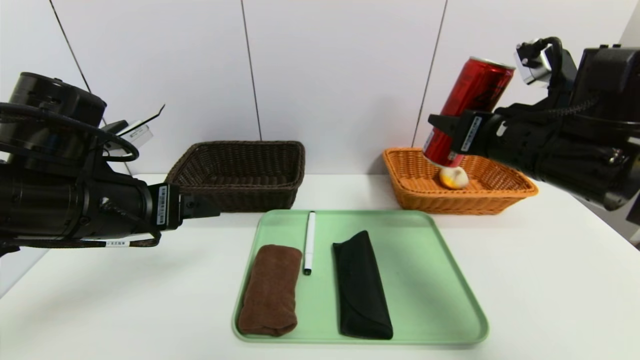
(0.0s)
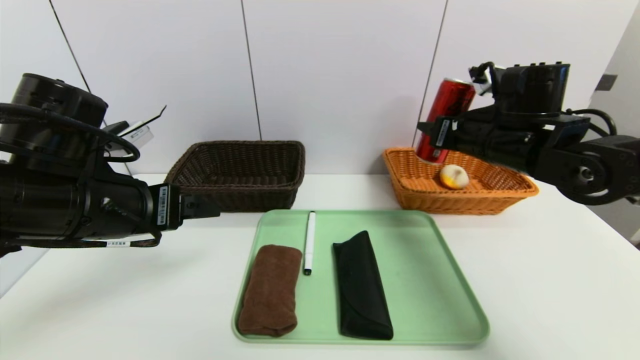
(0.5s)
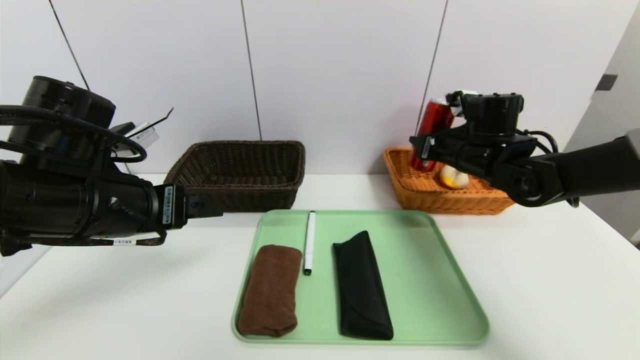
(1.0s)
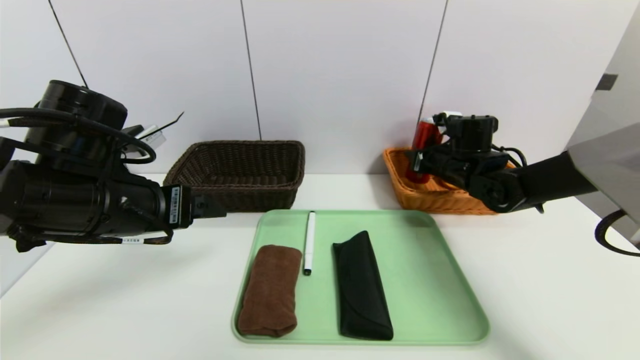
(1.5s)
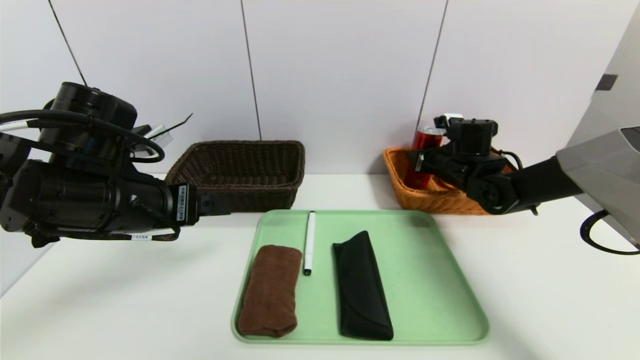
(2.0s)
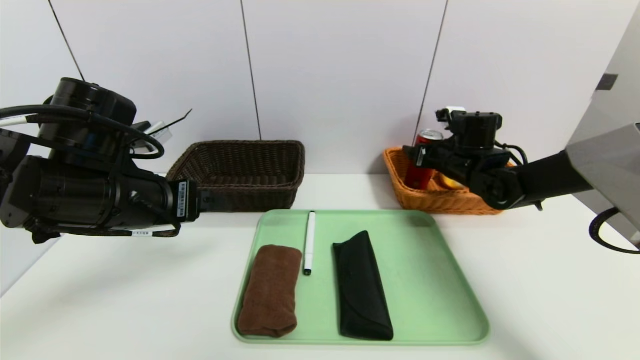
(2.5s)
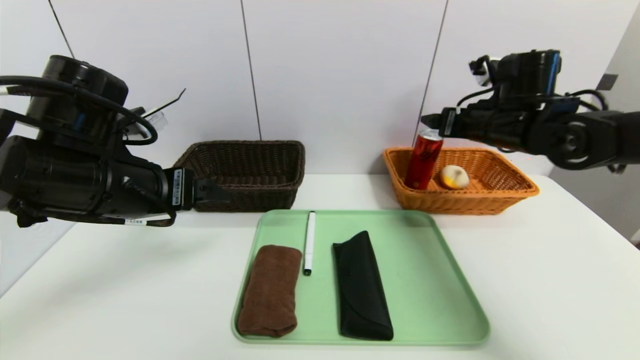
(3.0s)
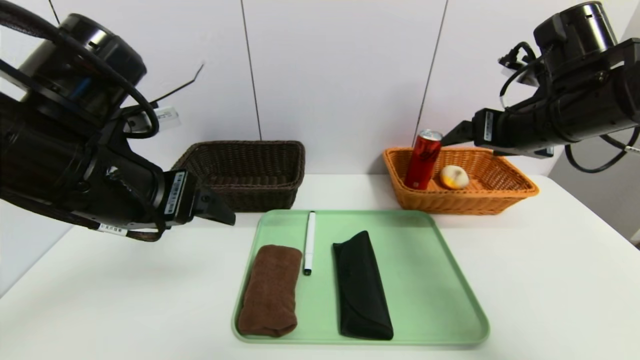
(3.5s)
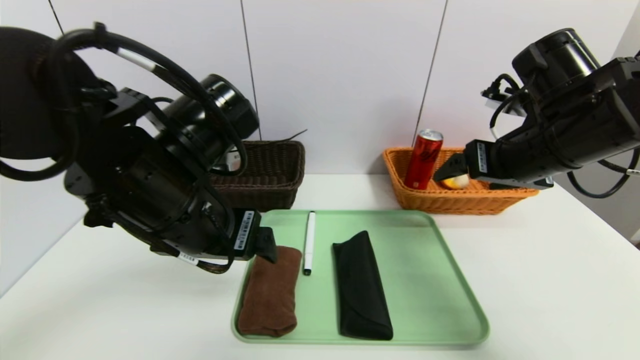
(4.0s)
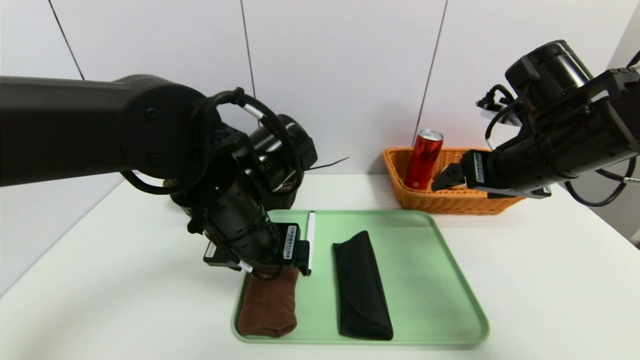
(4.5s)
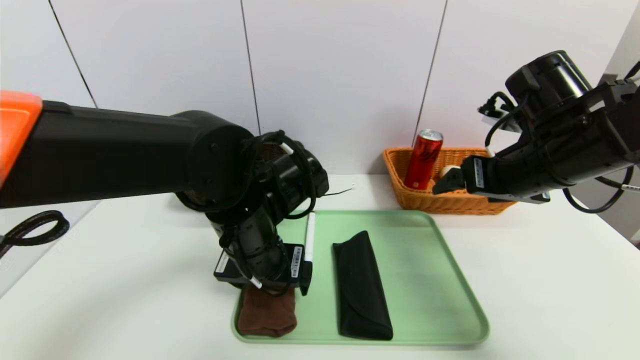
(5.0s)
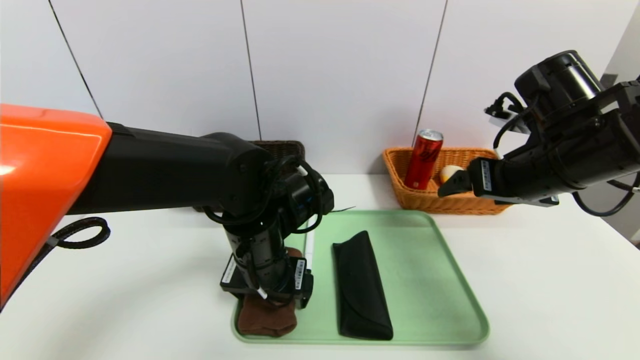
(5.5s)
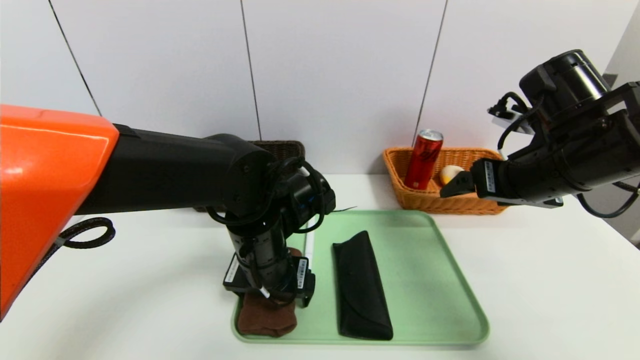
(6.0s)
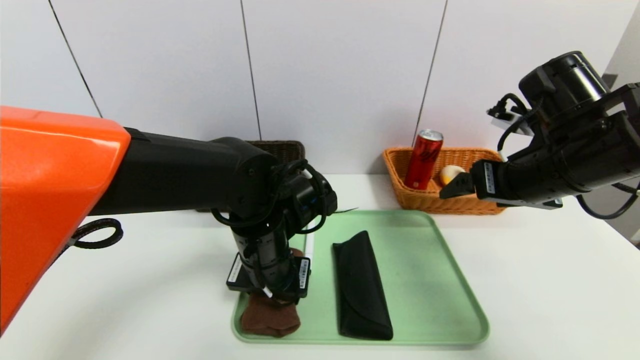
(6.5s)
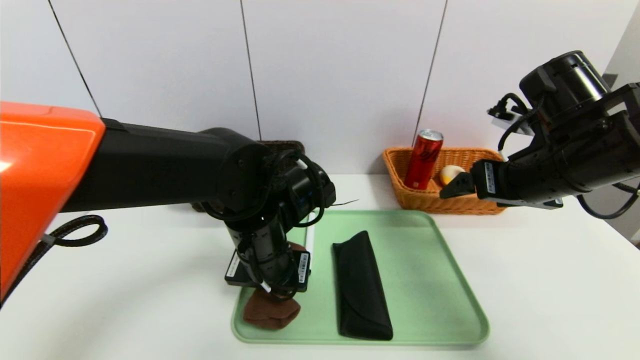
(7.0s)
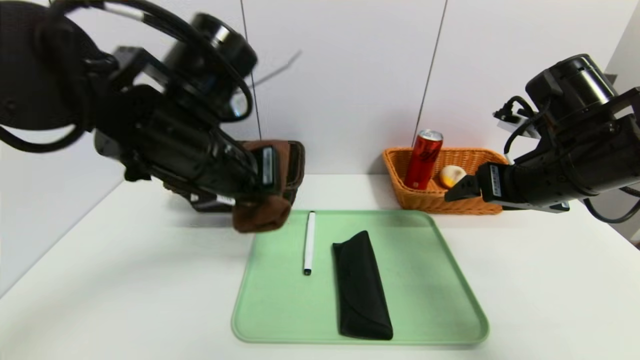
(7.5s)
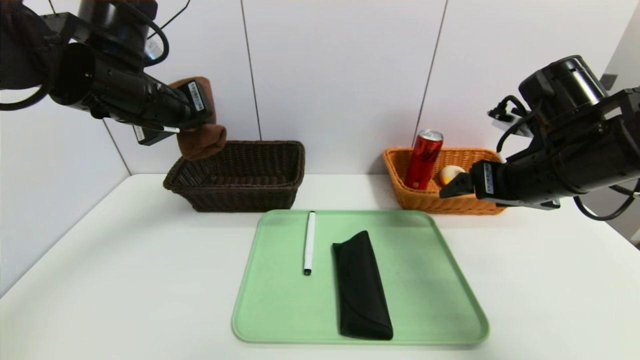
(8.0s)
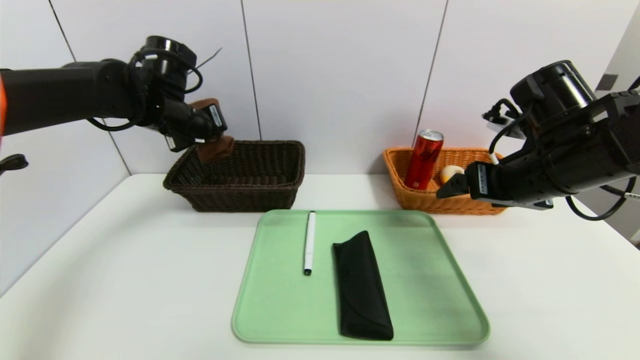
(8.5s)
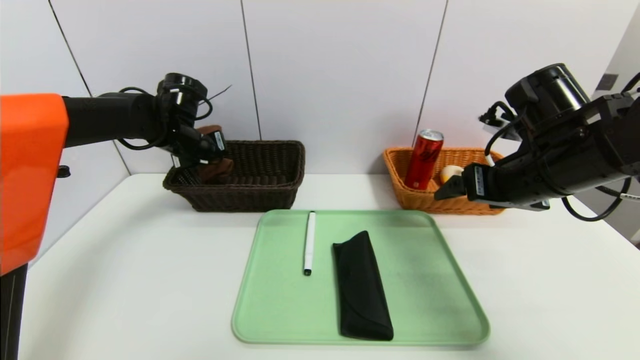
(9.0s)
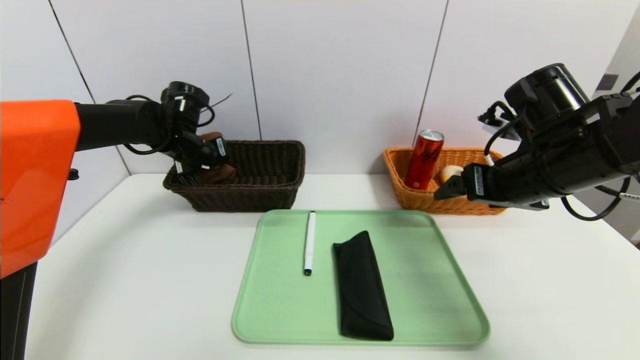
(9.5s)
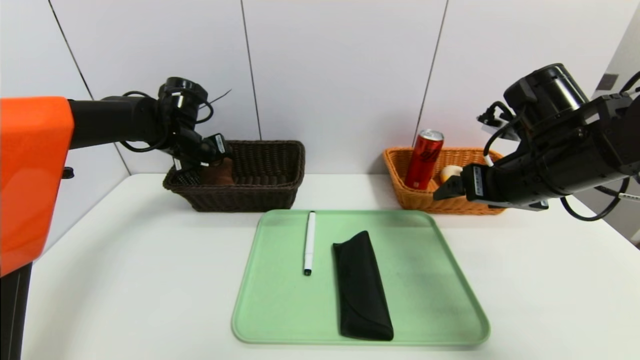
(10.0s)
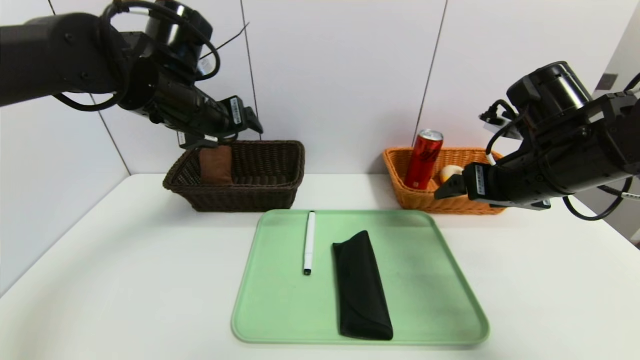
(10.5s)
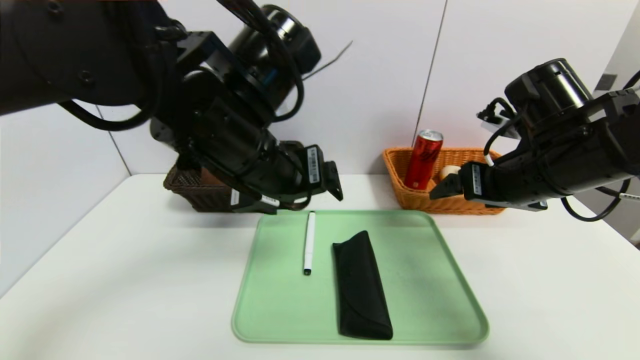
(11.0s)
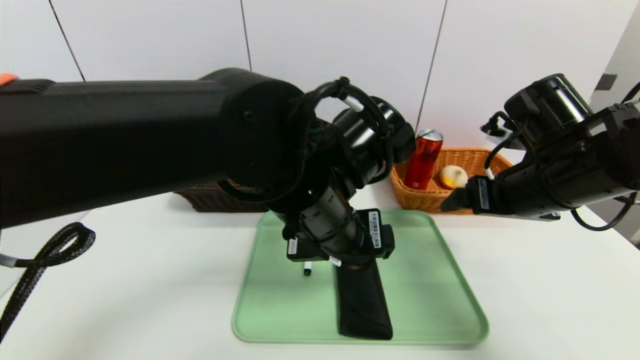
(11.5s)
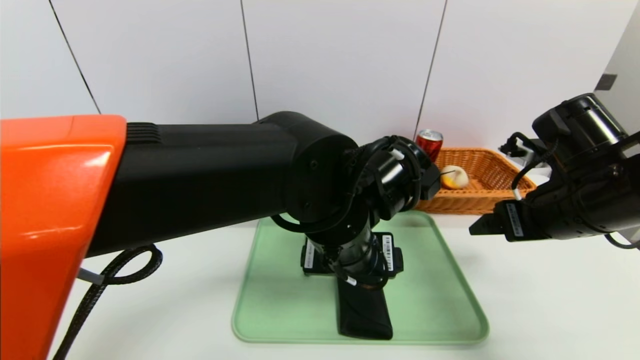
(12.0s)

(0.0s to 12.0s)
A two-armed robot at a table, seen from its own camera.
Task of the whole recording: place the food in the right basket with the right gripper, and place the non food items in the left basket with the left gripper.
Step, 0.0s - 3.0s: Grasp the canned cola and put it in the right basket.
Step, 3.5s - 10.5s: Grasp the brown towel and put it in the left basket.
0.0s - 2.0s: The right gripper goes roughly 25 cm forward and downward.
2.0s - 4.0s: The left gripper heads to the right, covering roughly 10 cm. Meanwhile the right gripper heads backward and upward, covering roughly 20 cm.
4.0s - 6.0s: The left gripper travels downward and to the right by about 10 cm.
6.0s - 8.0s: The left gripper travels upward, to the left and forward by some 25 cm, and closes up.
8.0s - 10.0s: The left gripper travels forward and downward by approximately 15 cm, and opens up.
10.0s - 12.0s: The left gripper is displaced to the right and backward by approximately 35 cm.

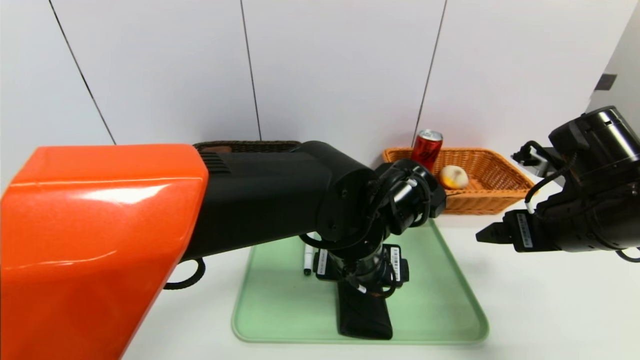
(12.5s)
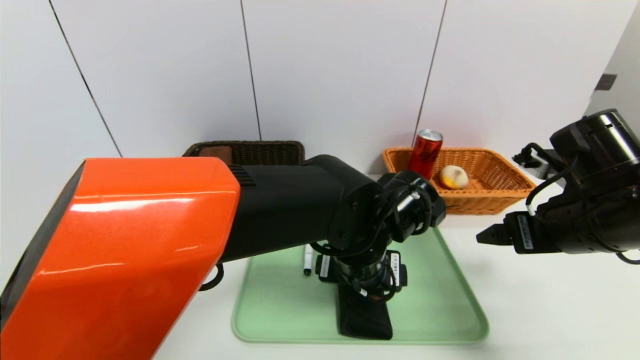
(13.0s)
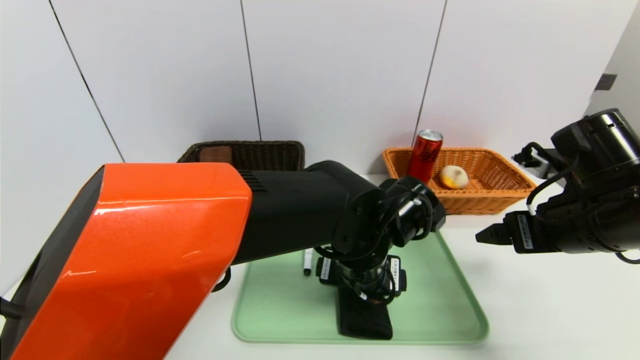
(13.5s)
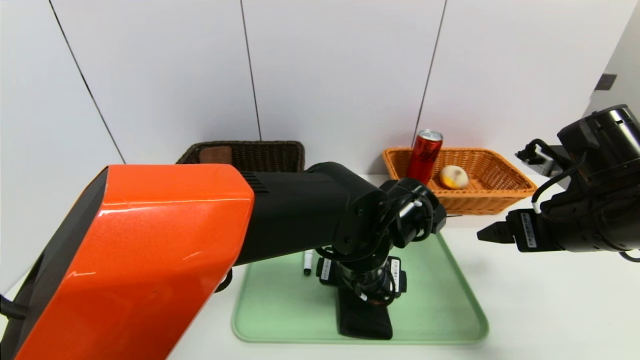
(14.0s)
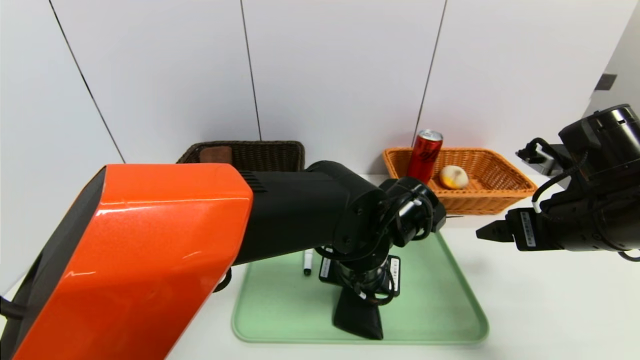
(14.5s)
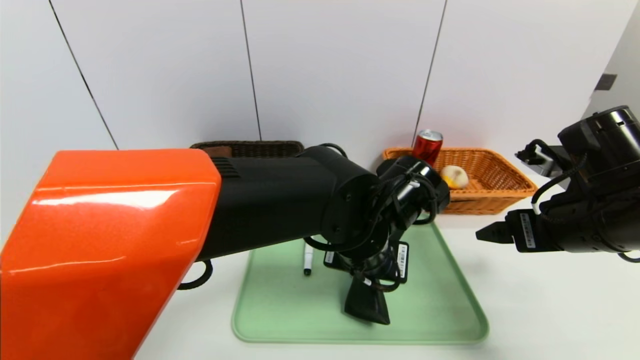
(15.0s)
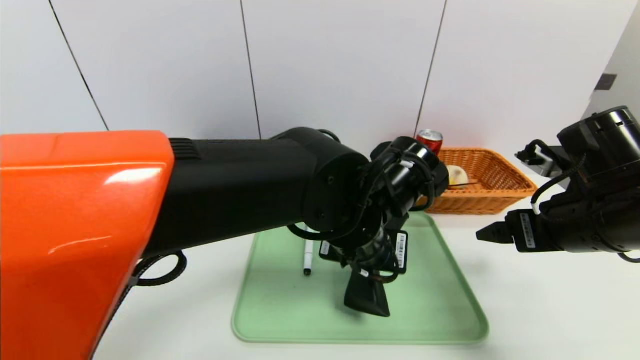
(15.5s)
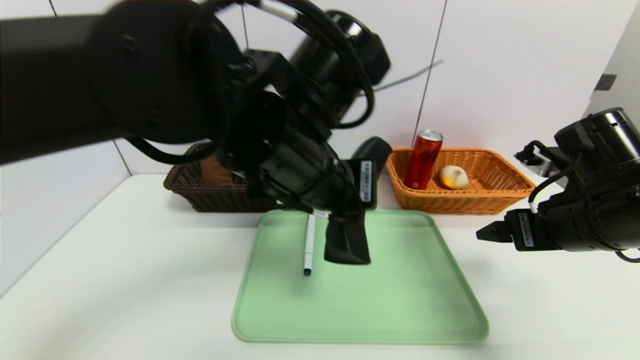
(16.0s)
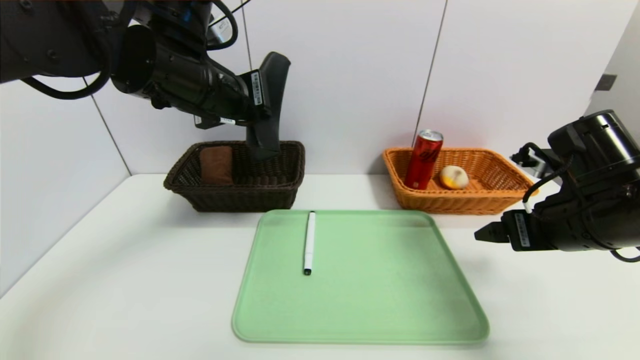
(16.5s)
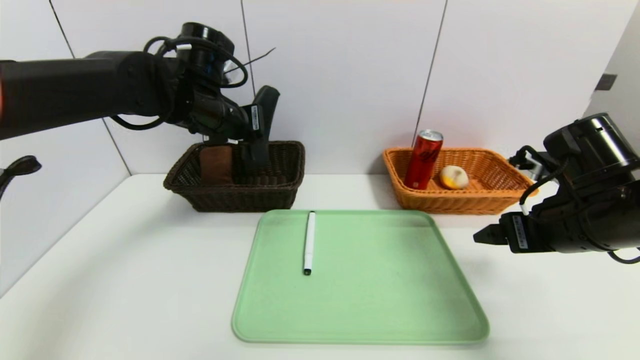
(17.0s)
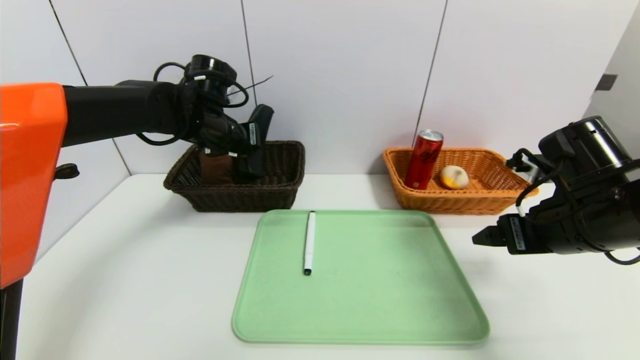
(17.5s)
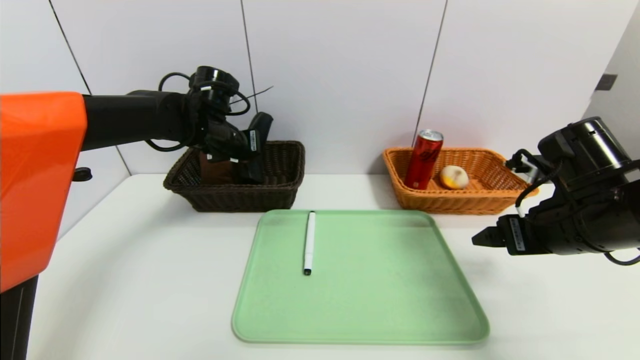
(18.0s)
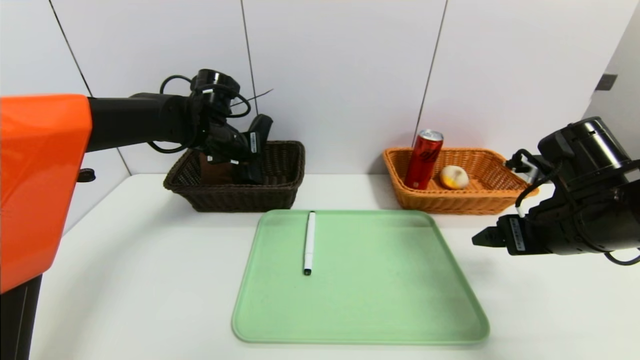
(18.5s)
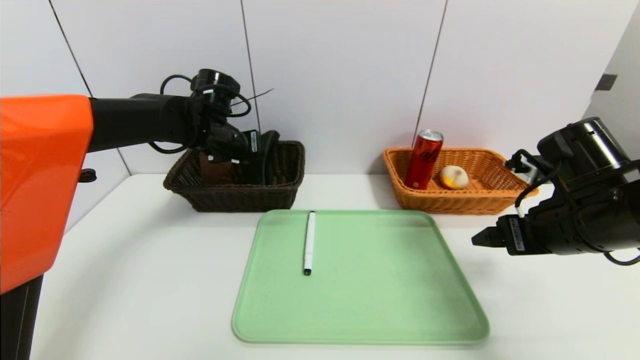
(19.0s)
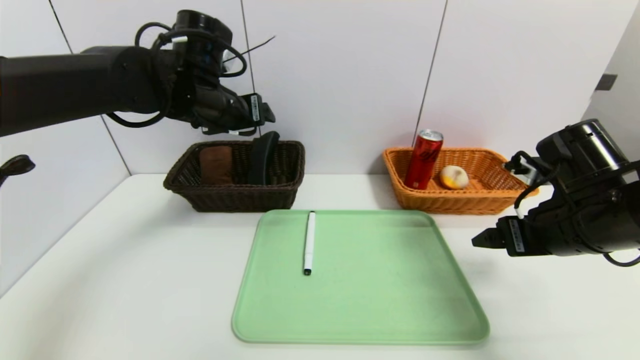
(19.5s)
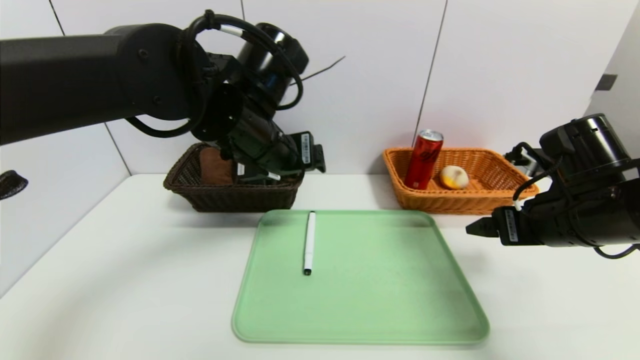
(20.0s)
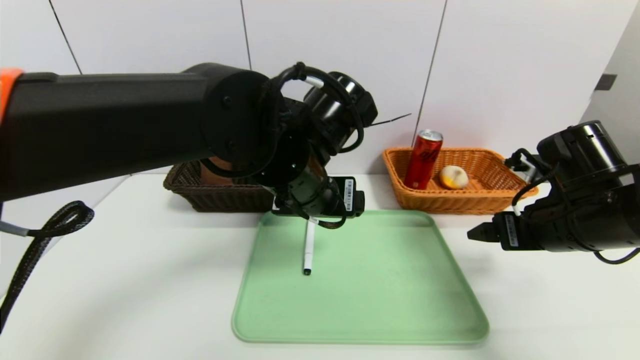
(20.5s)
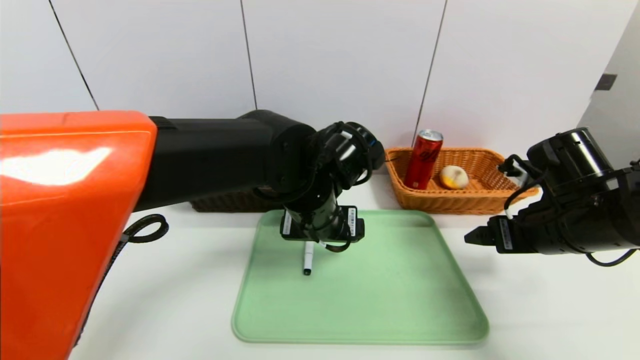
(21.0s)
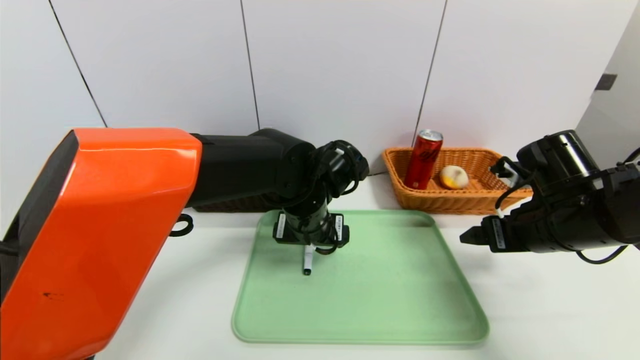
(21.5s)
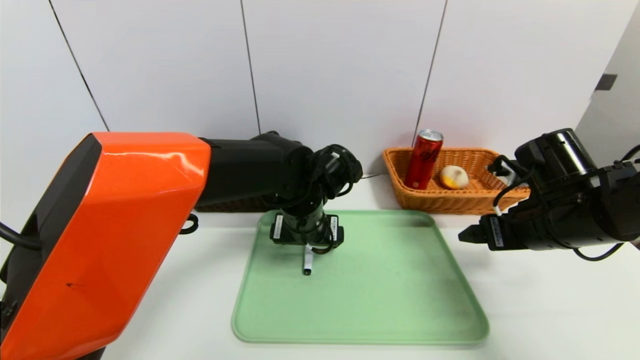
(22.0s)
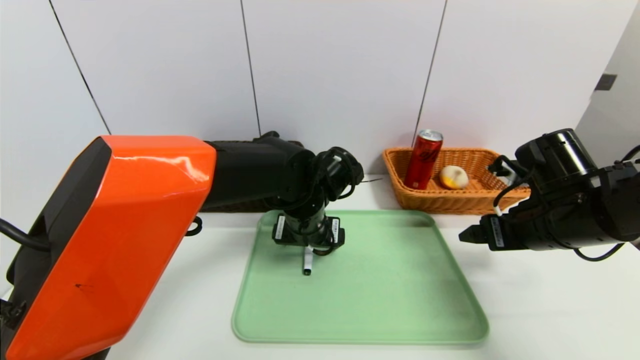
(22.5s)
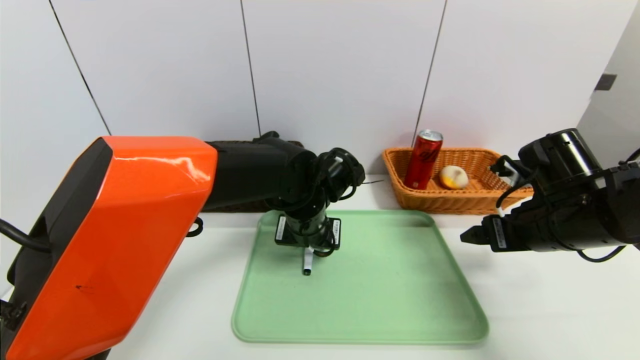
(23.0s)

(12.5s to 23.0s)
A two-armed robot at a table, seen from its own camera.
Task of the whole recording: place the food in the right basket with the right gripper, and place the non food items in the left basket with the left gripper.
Step, 12.5s - 19.0s: Grasp the glasses case and put it in the left basket.
12.5s - 14.5s: The left gripper closes up.
14.5s - 16.5s: The left gripper goes about 25 cm to the left and upward.
16.5s - 19.0s: The left gripper travels forward and downward by some 15 cm, and opens.
19.0s - 21.0s: The left gripper heads to the right and backward, covering approximately 25 cm, and opens its fingers.
21.0s - 23.0s: The left gripper ends up approximately 5 cm from where it was, and closes.
